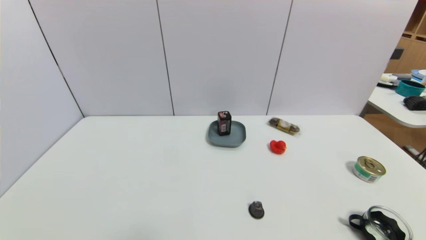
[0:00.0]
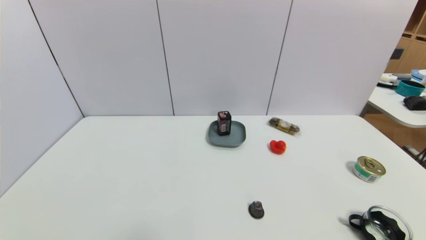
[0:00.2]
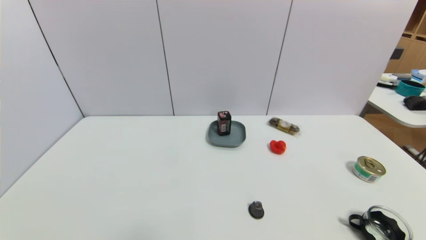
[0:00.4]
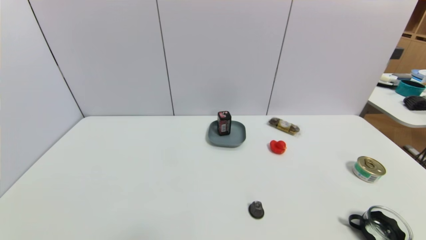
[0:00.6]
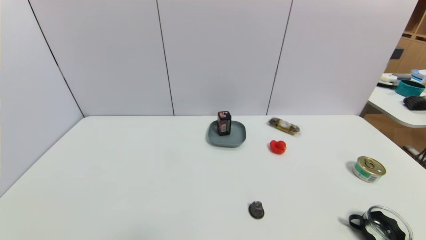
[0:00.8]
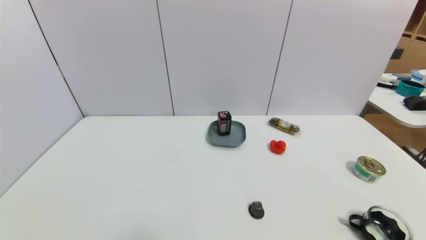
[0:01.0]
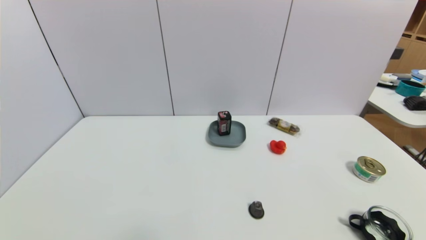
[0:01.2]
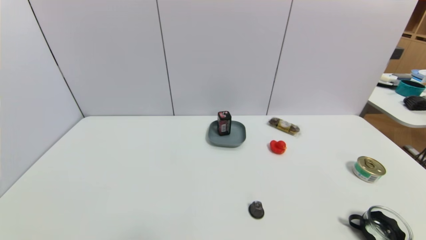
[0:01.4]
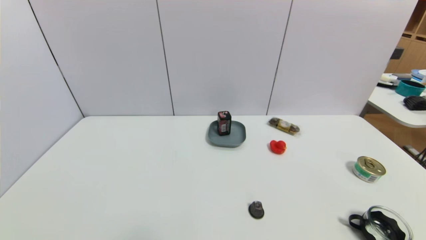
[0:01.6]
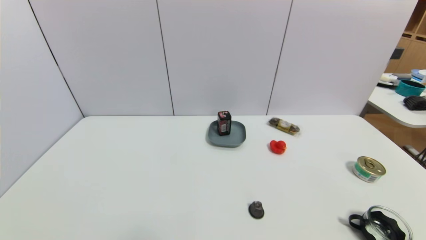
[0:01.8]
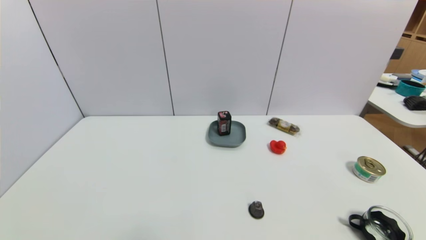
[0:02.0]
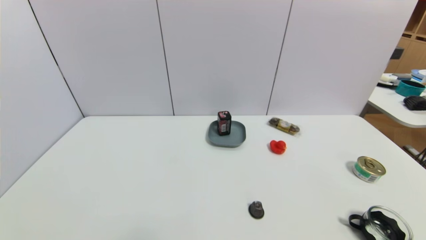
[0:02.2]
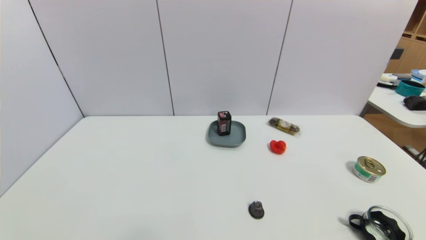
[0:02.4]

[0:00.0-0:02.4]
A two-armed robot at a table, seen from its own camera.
Task of the whole recording: use a gripper to pick the target object and place on the dish.
0:00.0 to 0:02.4: Both grippers stay put.

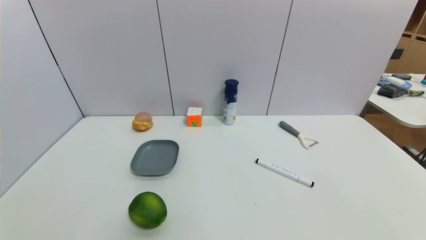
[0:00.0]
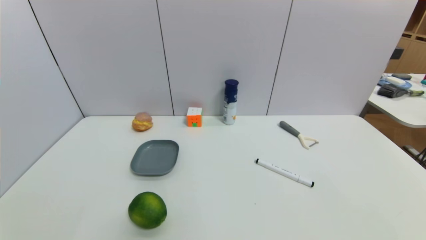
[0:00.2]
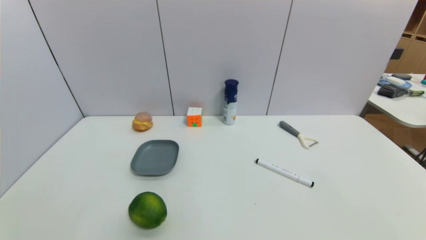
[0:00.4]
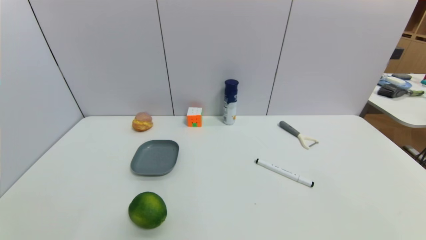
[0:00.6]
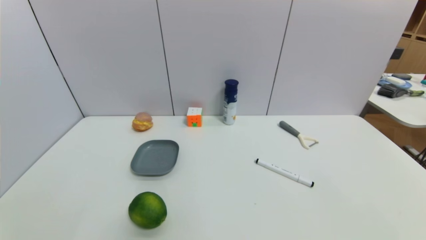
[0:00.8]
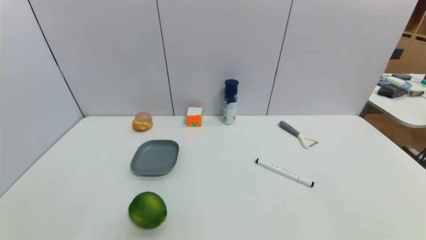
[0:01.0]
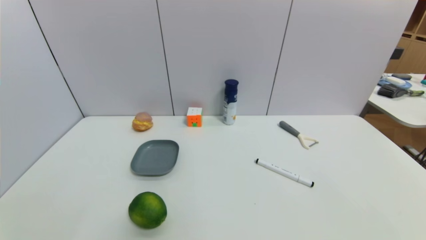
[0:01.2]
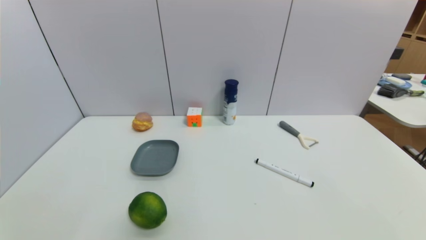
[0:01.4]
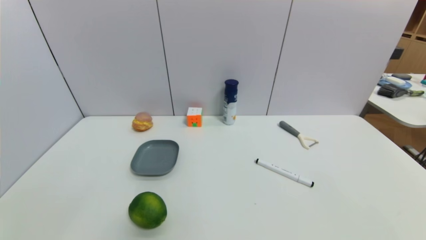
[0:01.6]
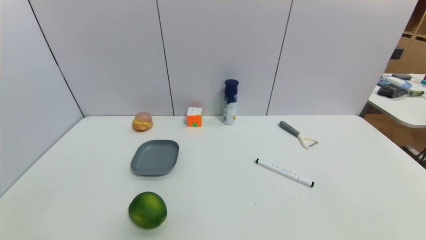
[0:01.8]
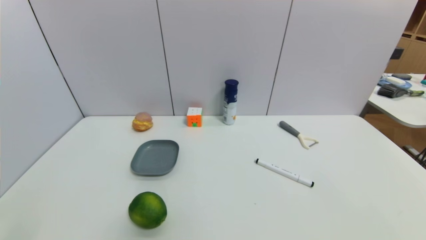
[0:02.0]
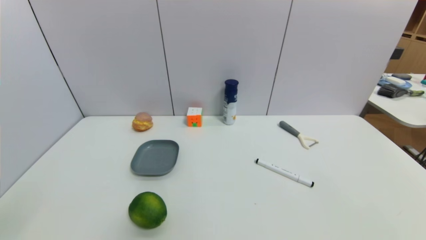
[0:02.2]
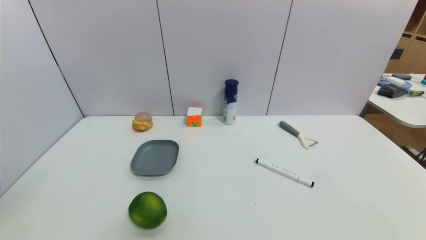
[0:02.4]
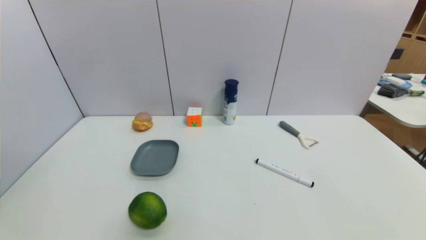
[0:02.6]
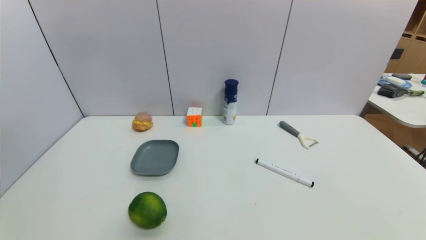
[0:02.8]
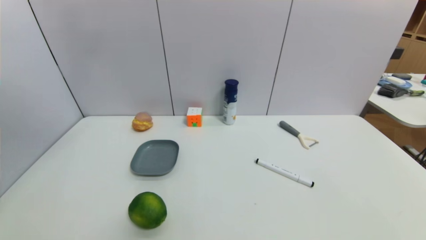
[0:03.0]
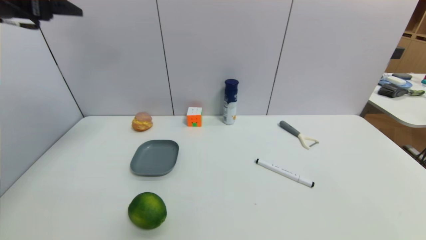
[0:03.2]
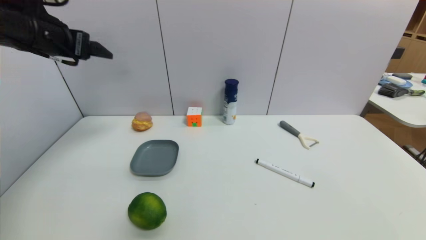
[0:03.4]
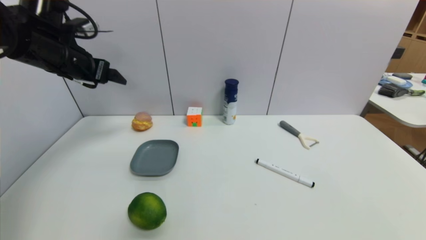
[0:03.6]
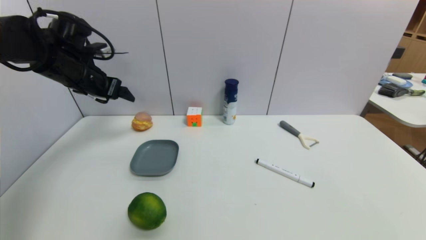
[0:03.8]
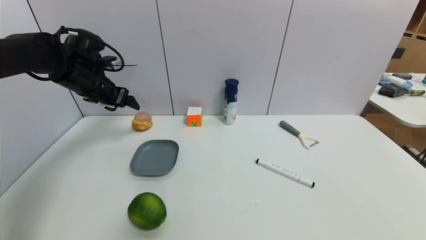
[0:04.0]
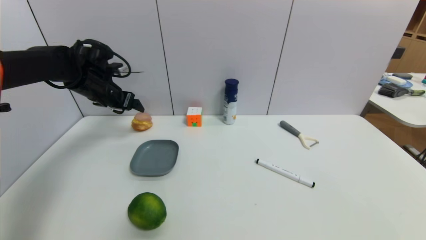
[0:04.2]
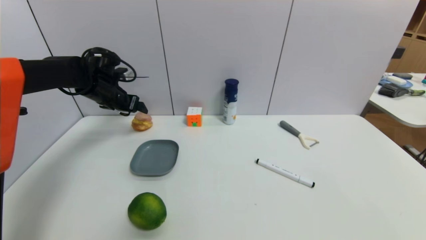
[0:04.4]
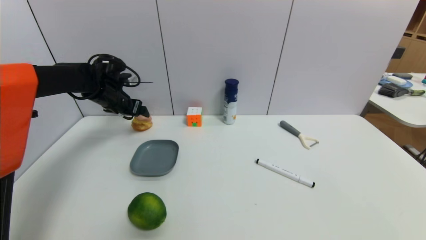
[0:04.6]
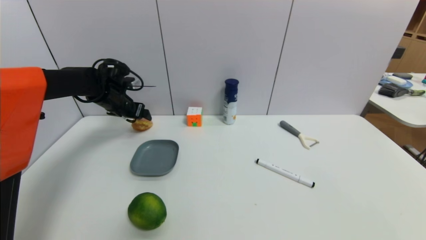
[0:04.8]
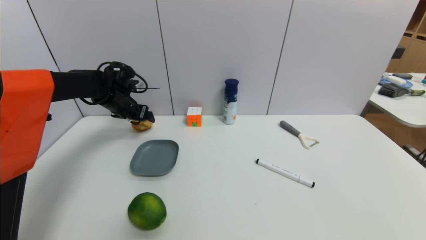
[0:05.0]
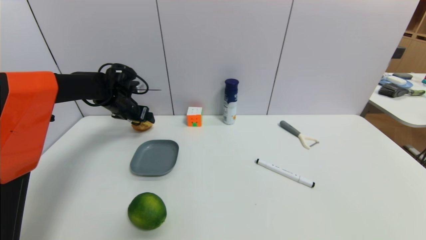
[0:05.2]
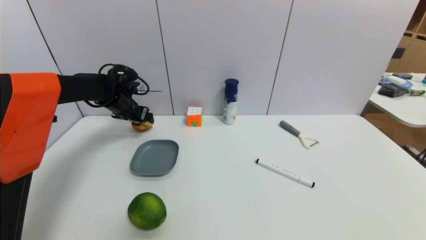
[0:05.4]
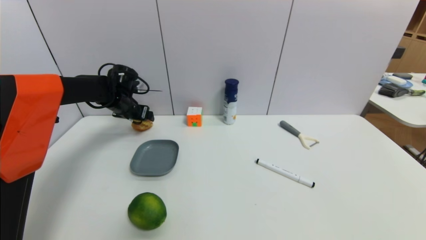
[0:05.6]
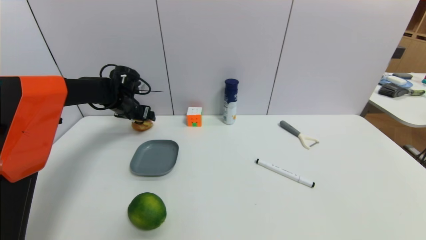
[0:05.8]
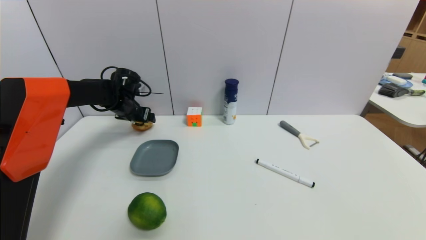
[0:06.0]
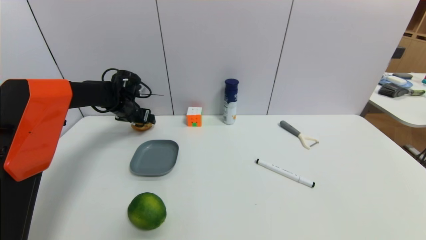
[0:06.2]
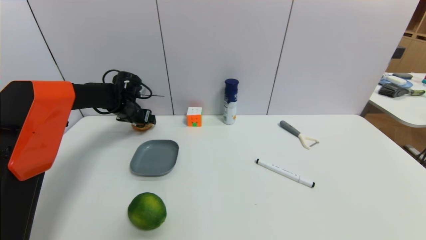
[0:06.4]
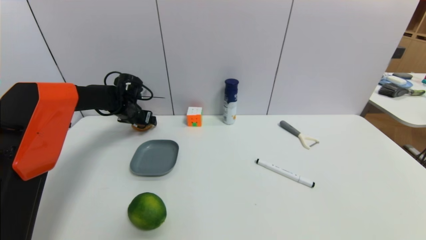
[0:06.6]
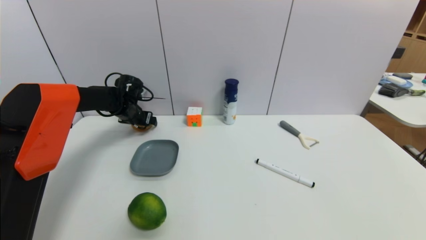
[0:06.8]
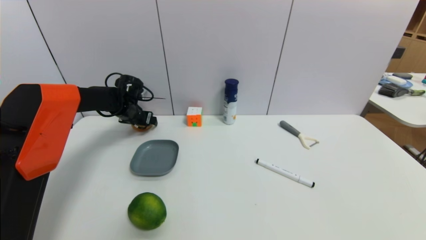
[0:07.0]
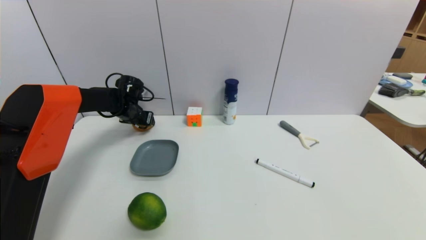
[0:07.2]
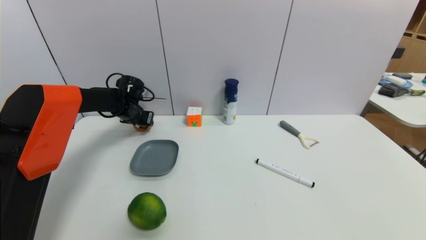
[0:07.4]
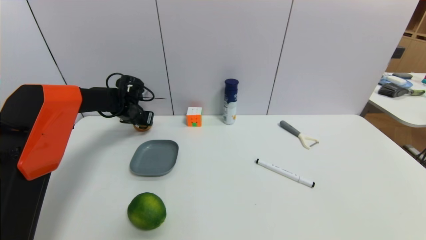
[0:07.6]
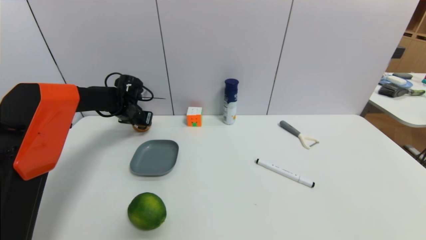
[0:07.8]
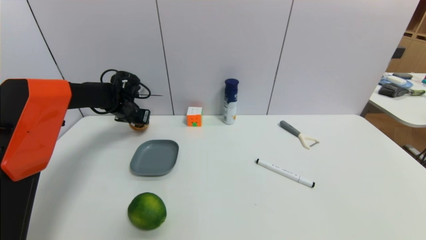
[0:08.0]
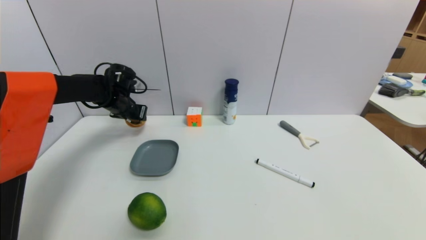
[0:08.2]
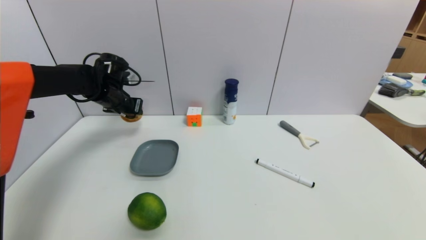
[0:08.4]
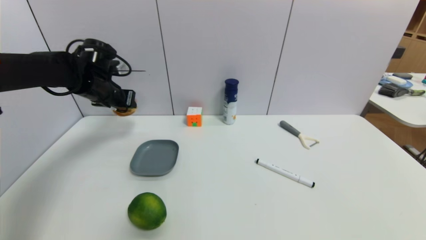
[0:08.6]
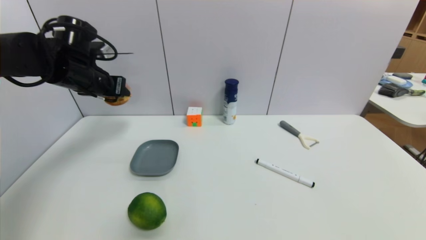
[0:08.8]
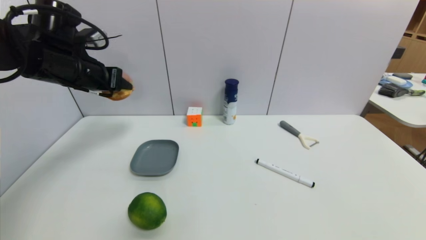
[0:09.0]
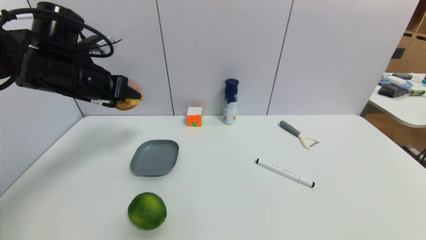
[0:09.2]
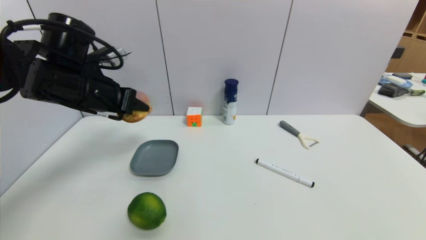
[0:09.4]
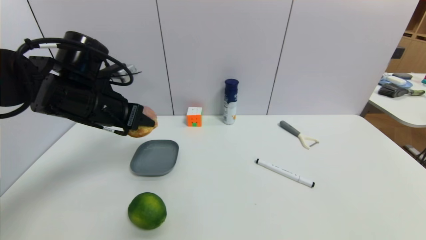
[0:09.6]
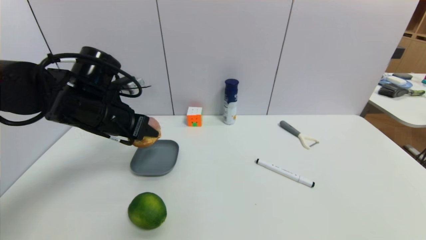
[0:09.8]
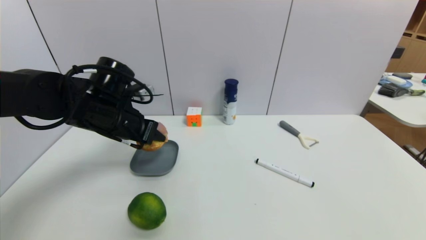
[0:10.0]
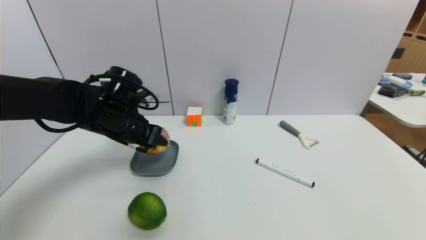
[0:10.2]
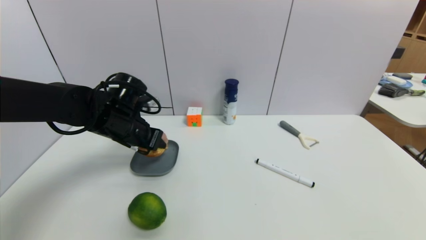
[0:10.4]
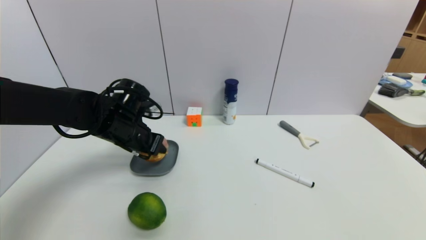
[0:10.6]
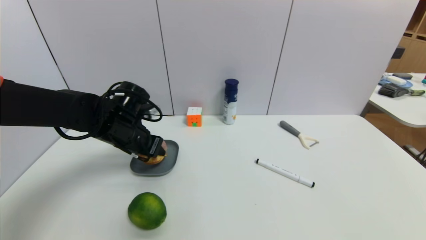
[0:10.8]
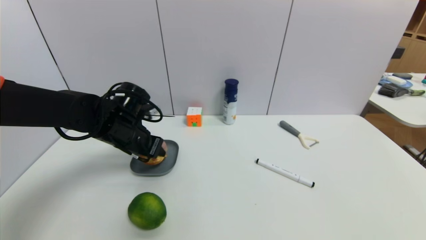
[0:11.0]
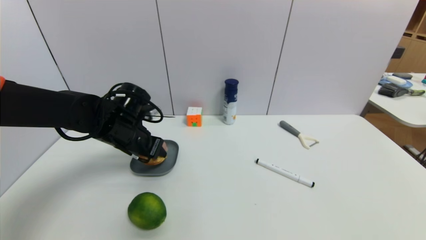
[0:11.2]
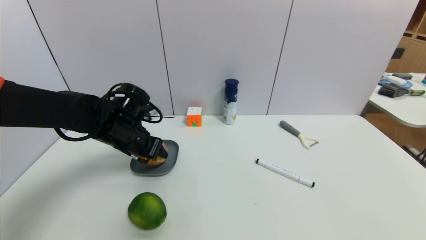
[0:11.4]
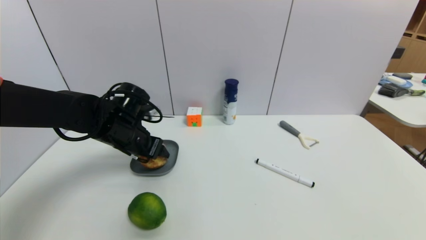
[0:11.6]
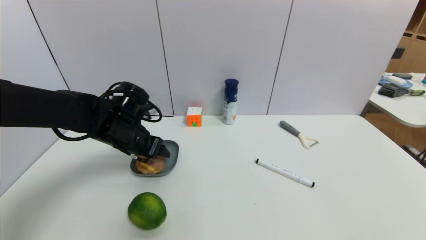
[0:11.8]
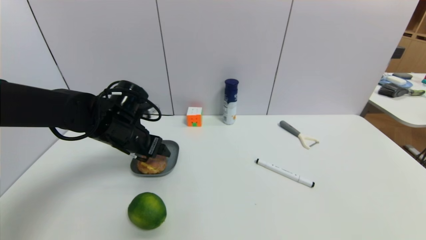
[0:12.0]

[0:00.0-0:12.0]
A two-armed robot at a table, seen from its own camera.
Task of the whole recording: use a gripper to pick the target object and place on the dish.
Step, 0:00.0 to 0:07.2: Grasp the round bread with the left gripper.
0:01.6 to 0:03.0: The left gripper travels upward and forward by approximately 40 cm.
0:03.0 to 0:04.4: The left gripper moves forward and downward, some 35 cm.
0:04.4 to 0:06.0: The left gripper goes some 5 cm downward.
0:06.0 to 0:07.6: The left gripper closes up.
0:07.6 to 0:09.0: The left gripper is displaced upward and backward by approximately 25 cm.
0:09.0 to 0:10.4: The left gripper is displaced downward and to the right by about 15 cm.
0:10.4 to 0:12.0: The left gripper opens up.

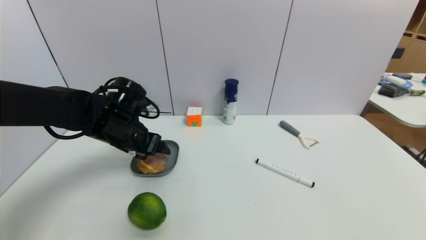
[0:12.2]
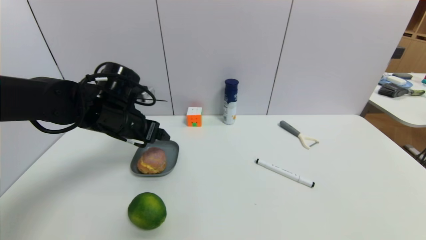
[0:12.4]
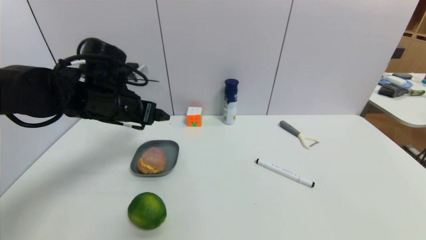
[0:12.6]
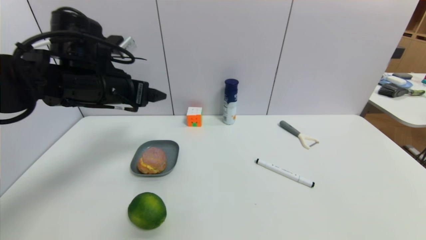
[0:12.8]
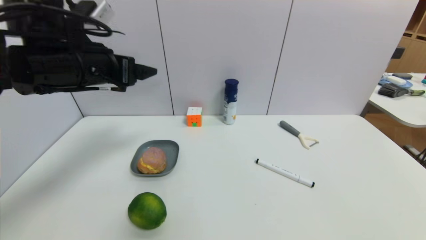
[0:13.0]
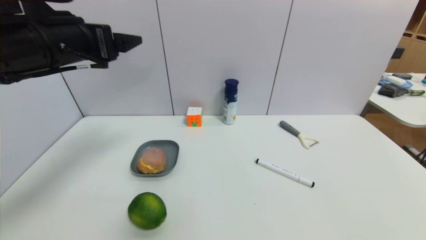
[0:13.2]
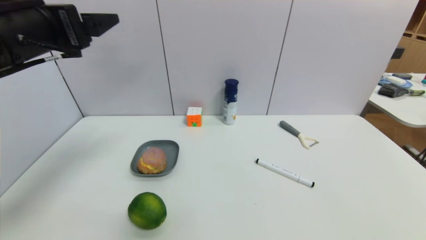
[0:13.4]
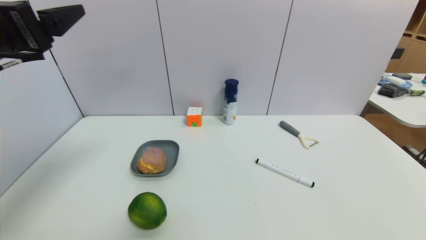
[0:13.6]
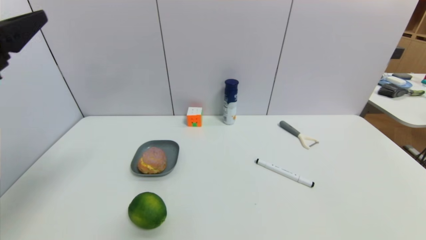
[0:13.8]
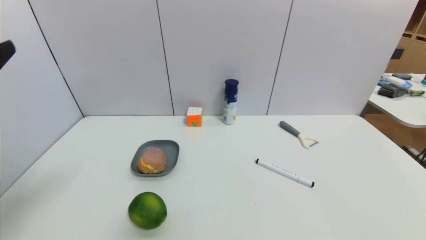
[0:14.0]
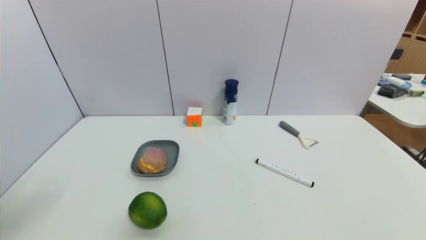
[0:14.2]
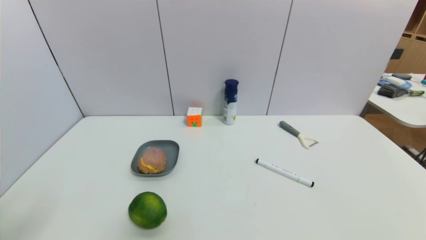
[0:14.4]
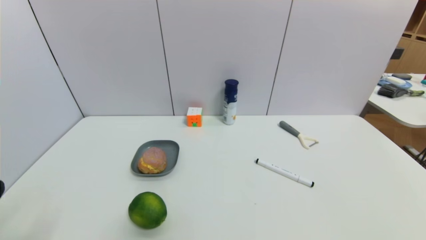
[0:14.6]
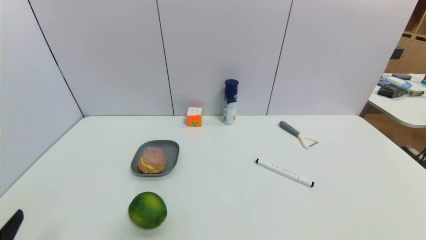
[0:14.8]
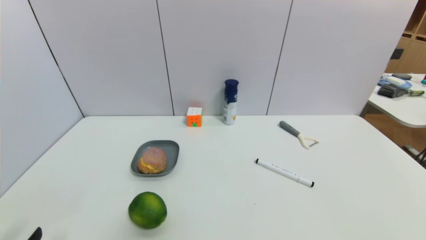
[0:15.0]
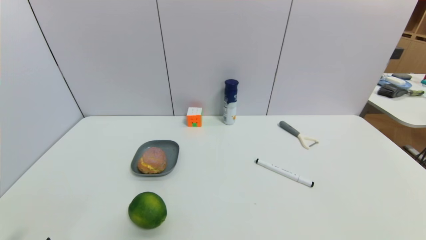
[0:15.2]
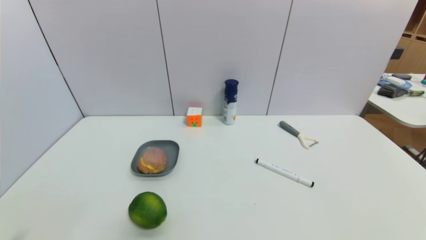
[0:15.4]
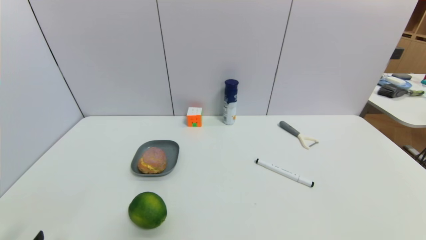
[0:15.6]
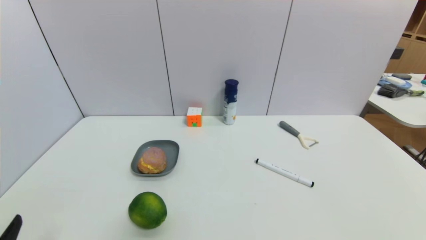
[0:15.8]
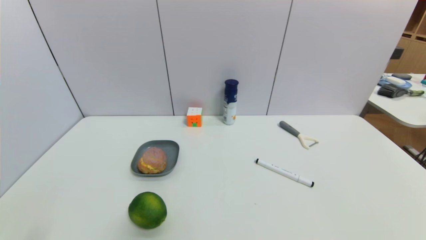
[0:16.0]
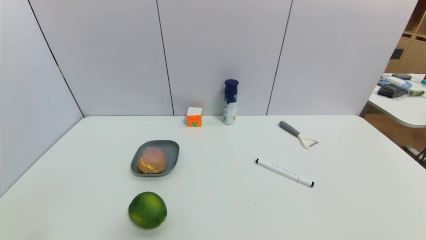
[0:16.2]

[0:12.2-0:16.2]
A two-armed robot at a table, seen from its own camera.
Task of the whole recording: use a gripper to pick the target object and place on the dish.
0:12.2 to 0:13.6: The left gripper travels upward and backward by approximately 20 cm.
0:13.6 to 0:14.8: The left gripper is displaced downward and backward by approximately 25 cm.
